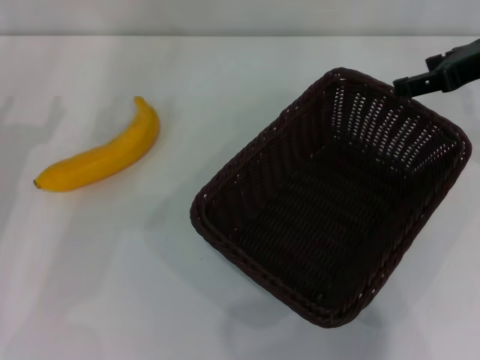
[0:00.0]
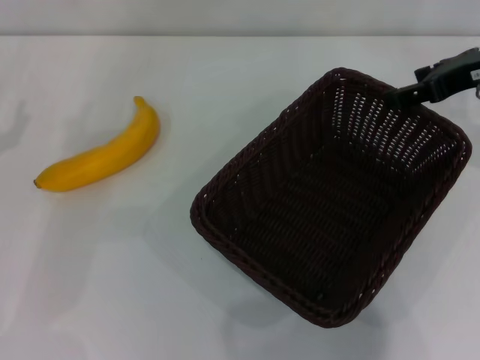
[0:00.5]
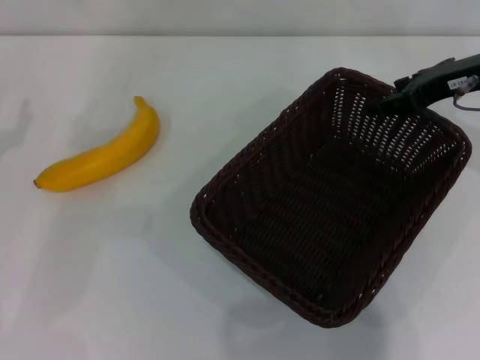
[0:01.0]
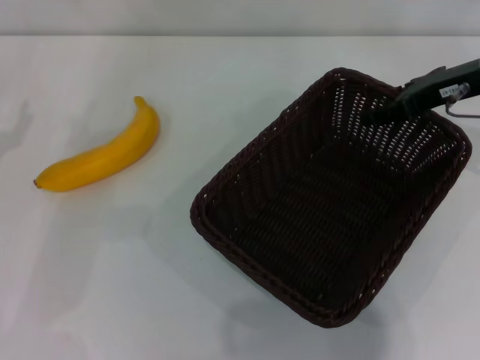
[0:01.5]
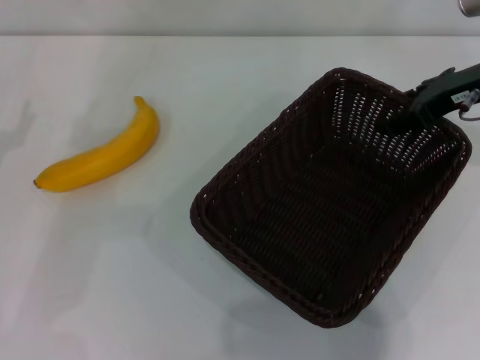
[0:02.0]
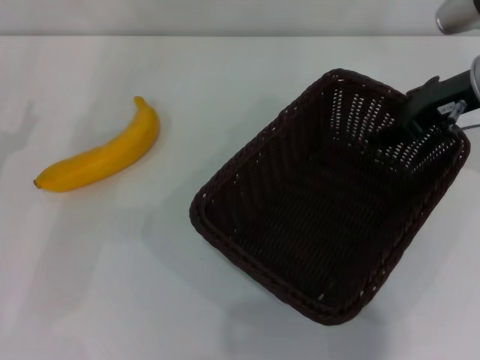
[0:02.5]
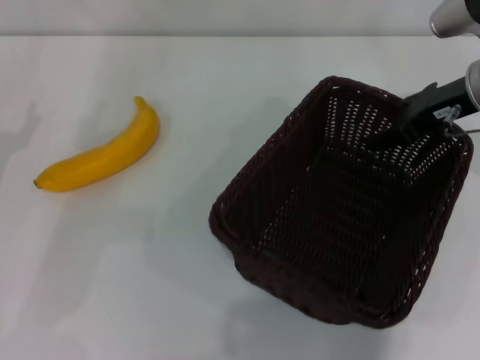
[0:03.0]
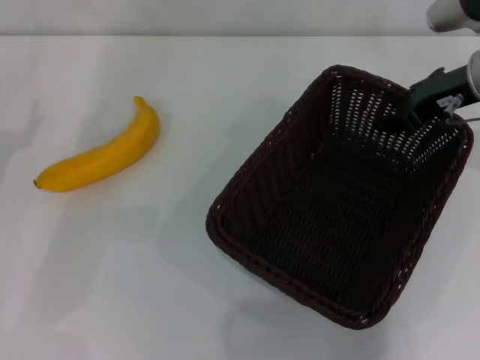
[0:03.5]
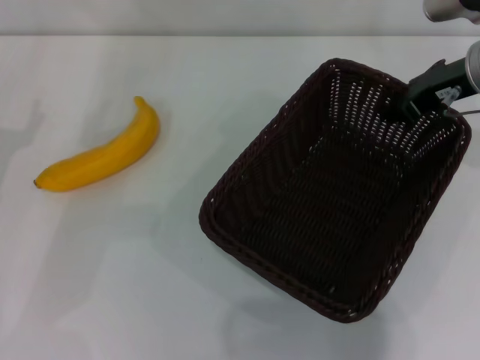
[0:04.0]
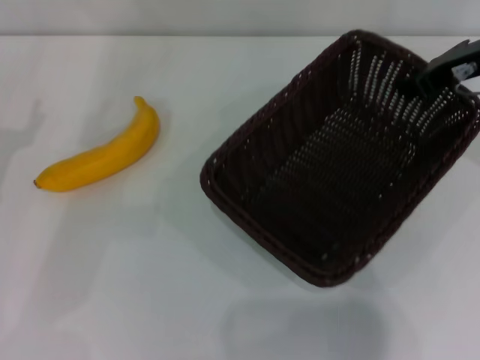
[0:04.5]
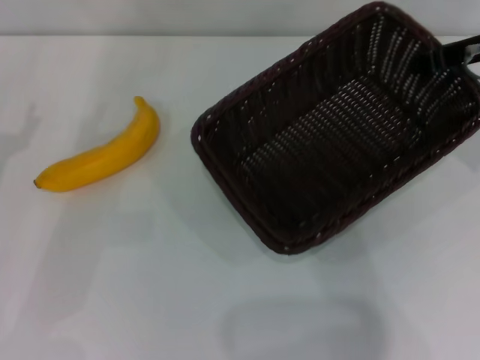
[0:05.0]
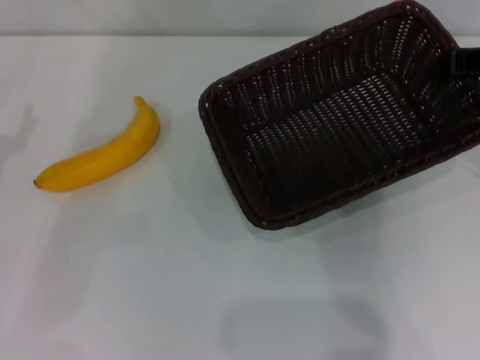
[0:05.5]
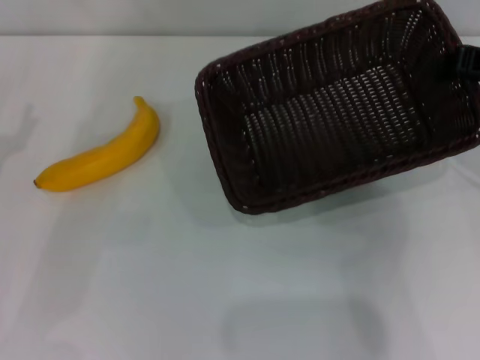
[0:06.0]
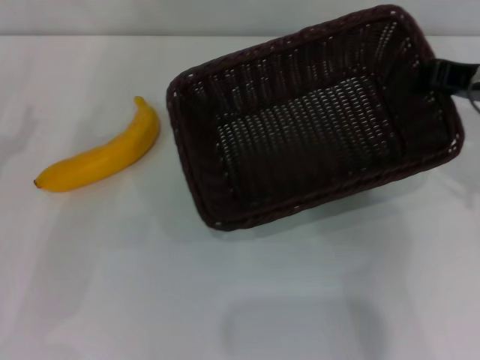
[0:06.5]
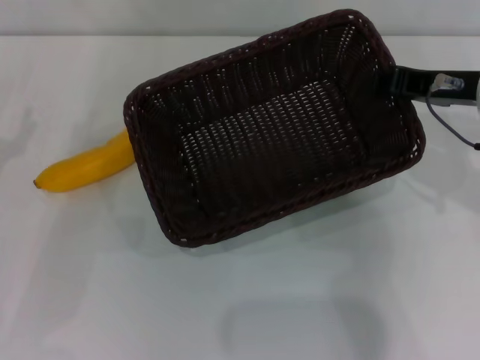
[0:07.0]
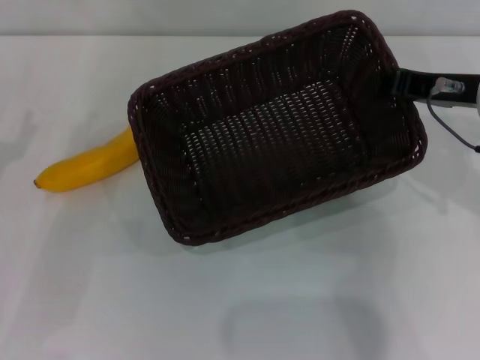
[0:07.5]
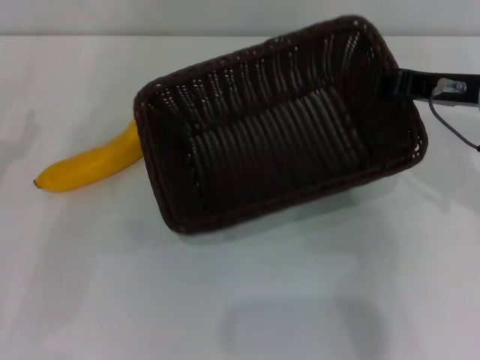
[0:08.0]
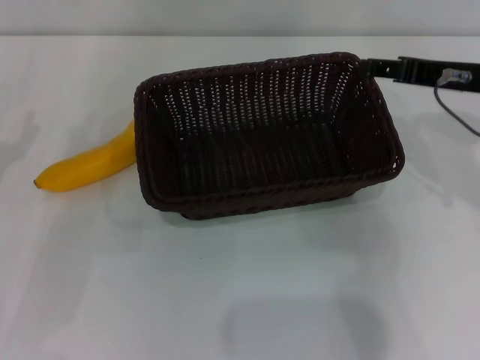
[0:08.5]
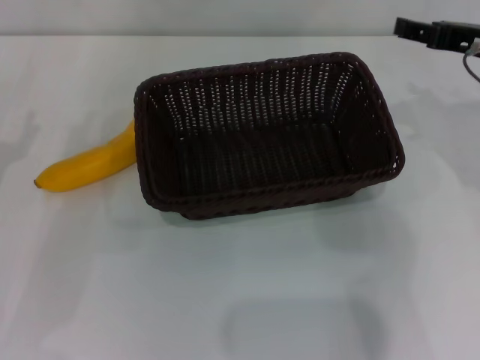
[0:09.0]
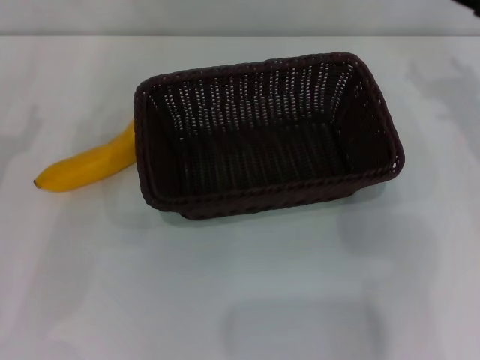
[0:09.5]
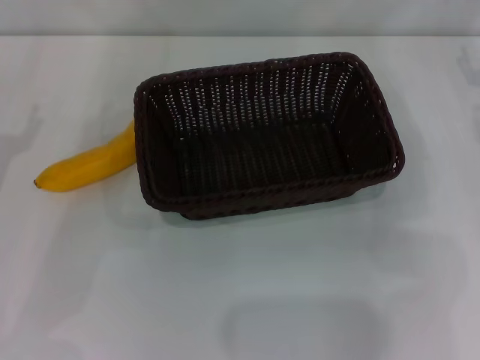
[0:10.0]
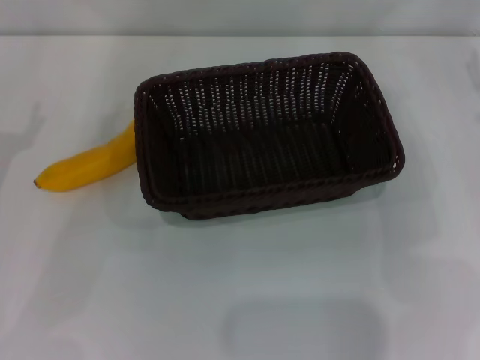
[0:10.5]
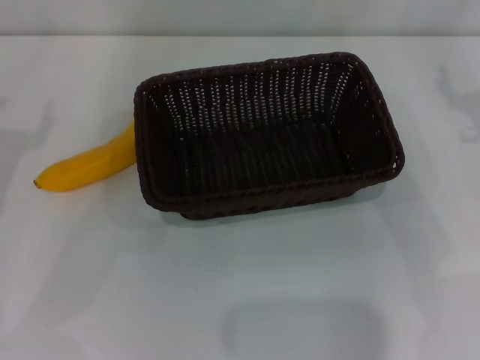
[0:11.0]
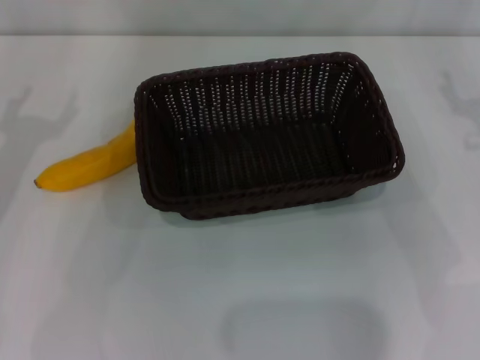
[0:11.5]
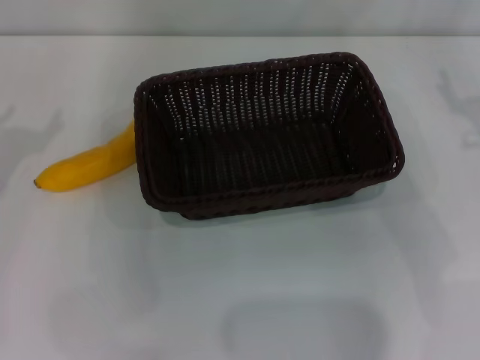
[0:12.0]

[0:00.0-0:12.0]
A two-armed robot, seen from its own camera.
Step, 0:00.0 to 0:04.0: Pick up the dark basket with the right gripper.
Step, 0:04.5 to 0:08.5: Place the dark basket in the center of view with the right gripper.
0:00.0 to 0:02.0: There are only small adjustments of the grippers.
0:02.0 to 0:04.0: The right gripper closes its fingers.
0:04.0 to 0:06.0: The right gripper moves backward, approximately 5 cm.
0:06.0 to 0:08.0: The right gripper shifts by approximately 5 cm.
0:08.0 to 0:10.0: The right gripper shifts roughly 10 cm to the right, and opens its fingers.

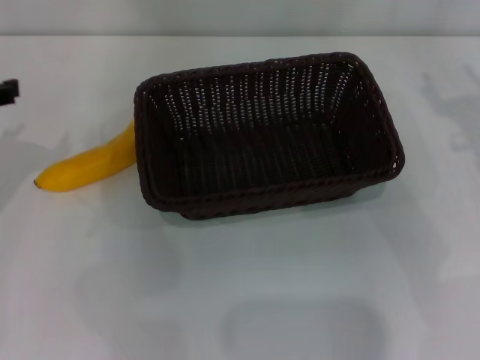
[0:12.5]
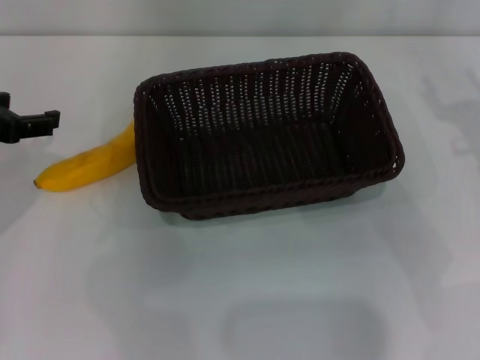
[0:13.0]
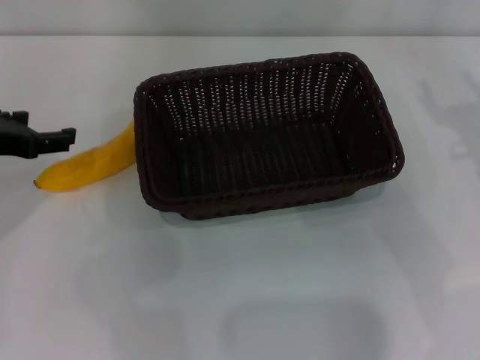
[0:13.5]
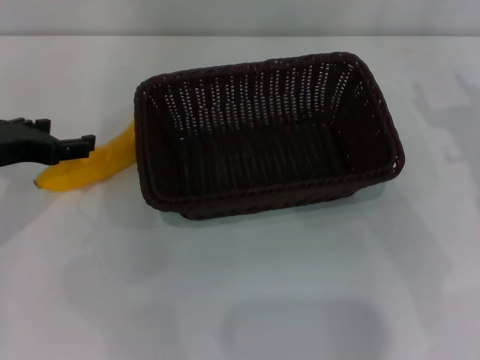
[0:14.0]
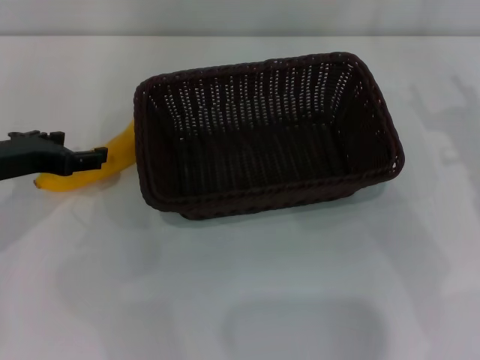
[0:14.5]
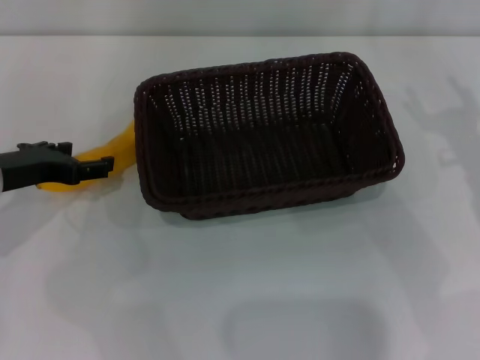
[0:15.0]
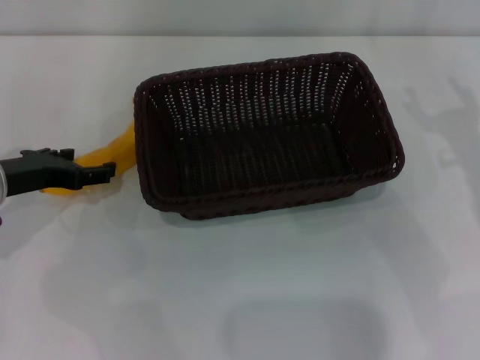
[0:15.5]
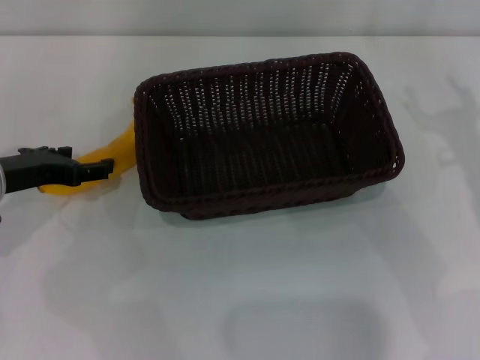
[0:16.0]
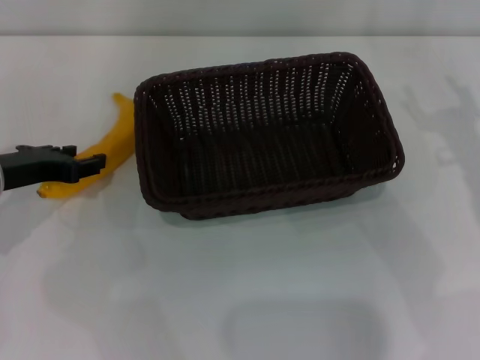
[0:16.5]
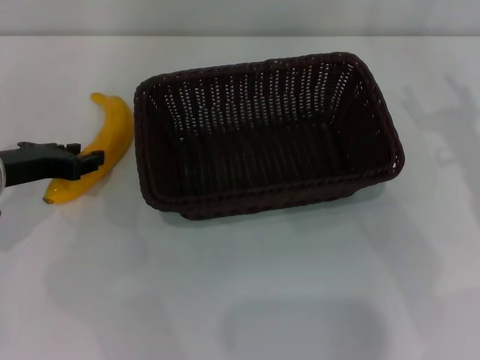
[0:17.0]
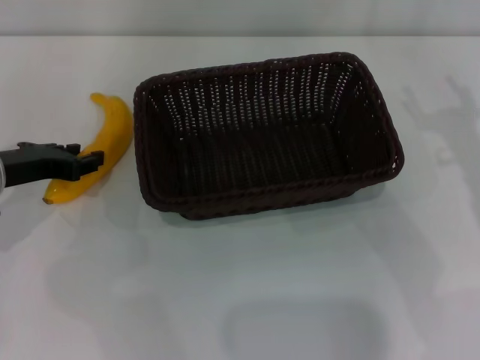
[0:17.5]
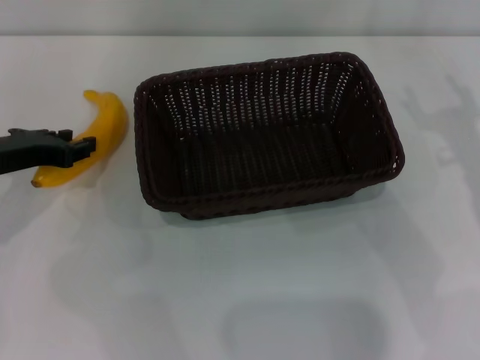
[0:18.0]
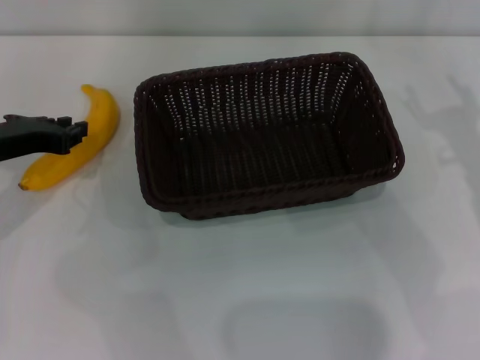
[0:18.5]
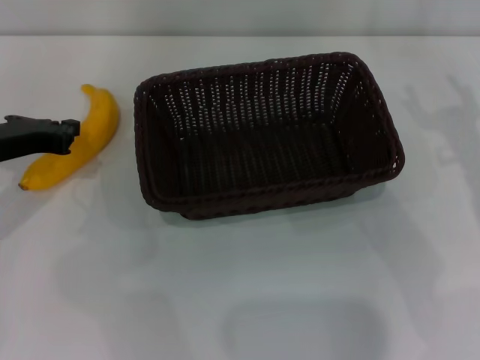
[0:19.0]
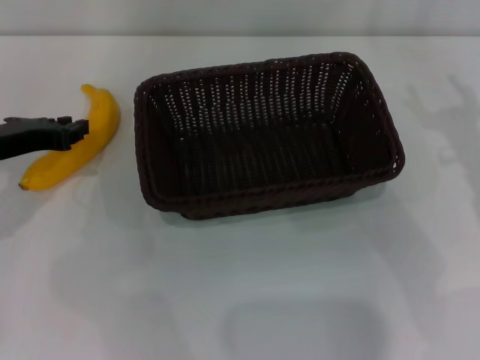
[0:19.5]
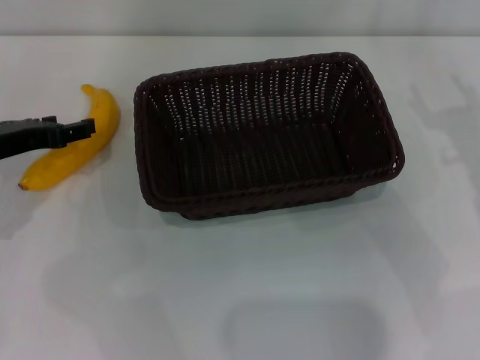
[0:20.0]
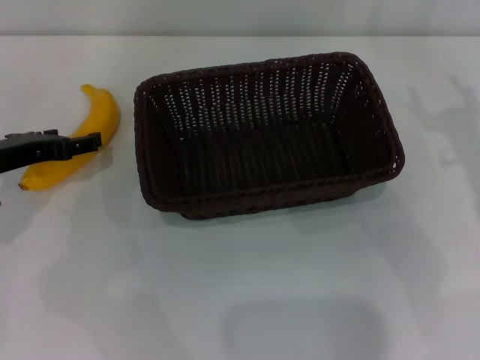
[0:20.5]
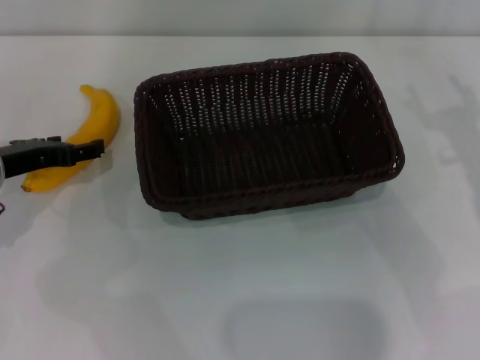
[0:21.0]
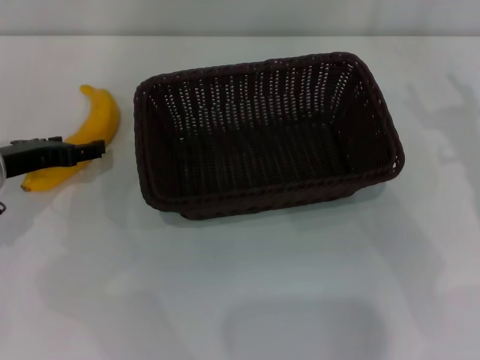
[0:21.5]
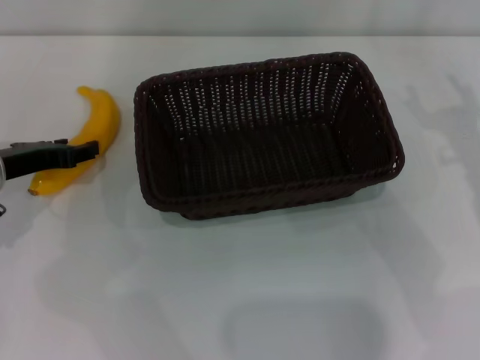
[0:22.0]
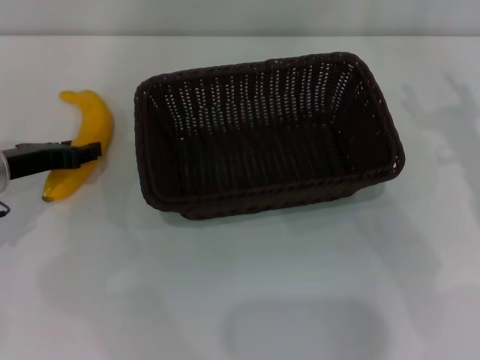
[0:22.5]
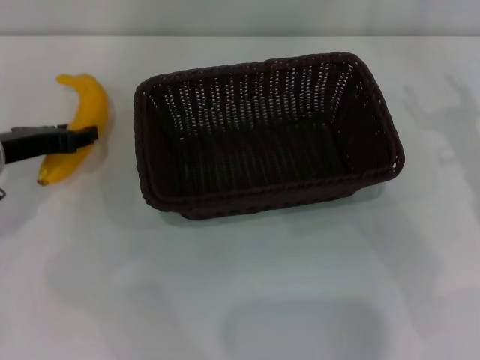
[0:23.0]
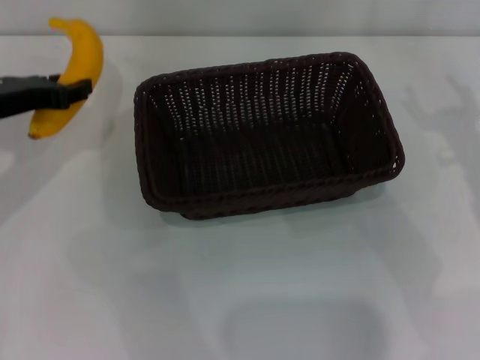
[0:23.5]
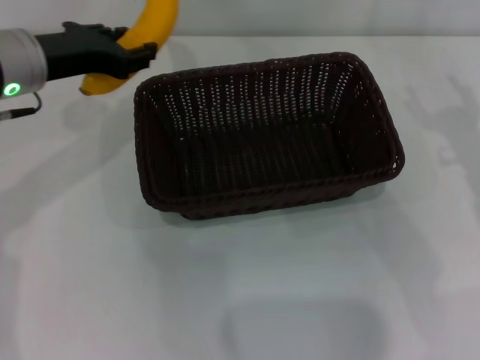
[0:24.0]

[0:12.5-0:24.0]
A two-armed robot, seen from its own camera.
Step, 0:12.5 to 0:23.0: Pick up the banana with the left gripper.
0:12.5 to 0:14.5: The left gripper moves downward, some 10 cm.
0:14.5 to 0:16.5: The grippers make only small movements.
0:16.5 to 0:18.5: The left gripper closes.
0:20.0 to 0:22.0: The grippers make only small movements.
0:22.0 to 0:24.0: The left gripper moves upward and to the right, about 10 cm.

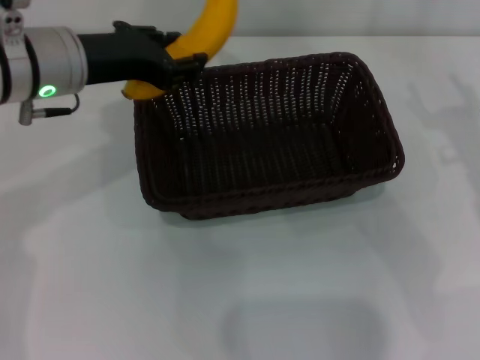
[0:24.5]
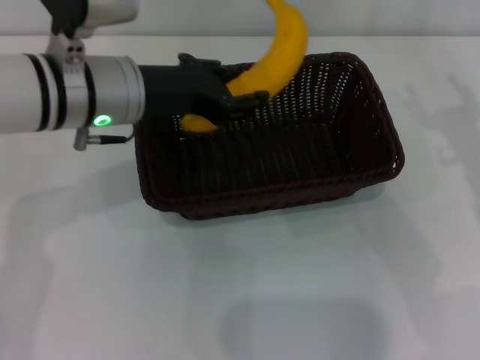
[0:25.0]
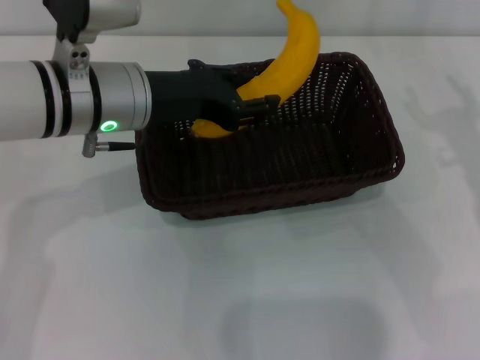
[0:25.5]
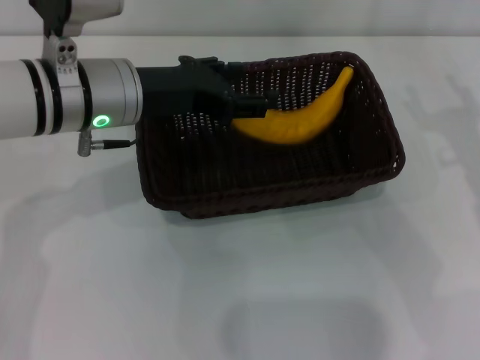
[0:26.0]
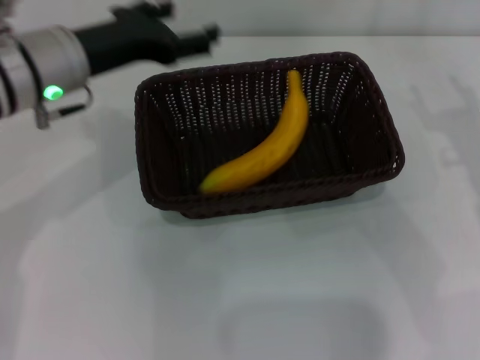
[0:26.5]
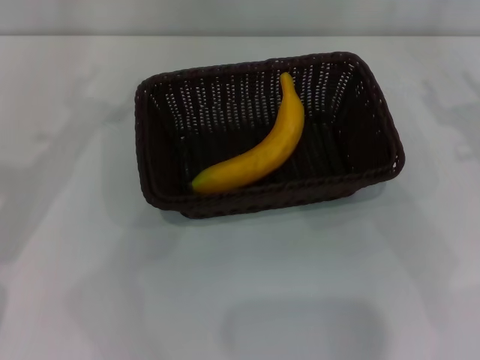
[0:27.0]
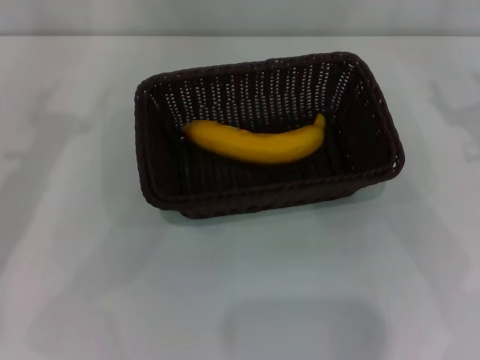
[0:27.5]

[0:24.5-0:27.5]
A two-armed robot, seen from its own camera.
Step, 0:24.5 to 0:26.0: Place the banana into the dark basket with the left gripper.
0:24.5 to 0:26.0: The grippers make only small movements.
0:26.0 to 0:27.5: The left gripper goes some 15 cm to the left, and opens.
